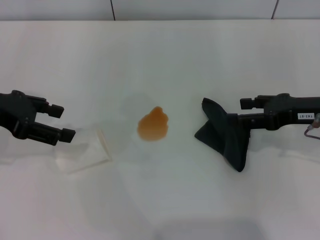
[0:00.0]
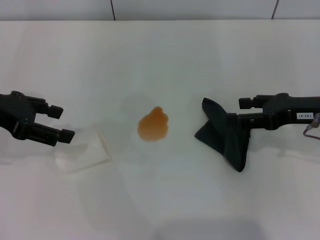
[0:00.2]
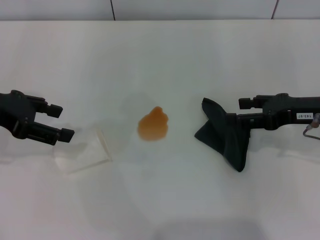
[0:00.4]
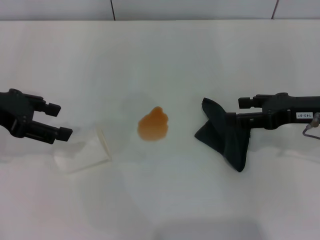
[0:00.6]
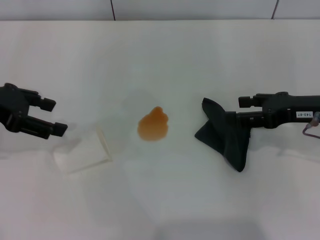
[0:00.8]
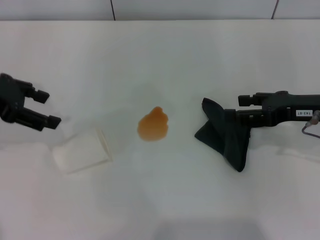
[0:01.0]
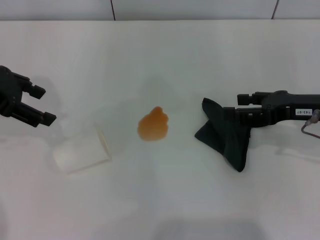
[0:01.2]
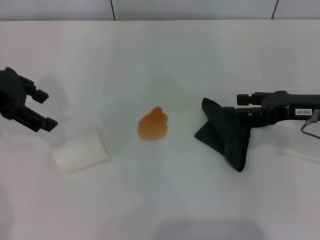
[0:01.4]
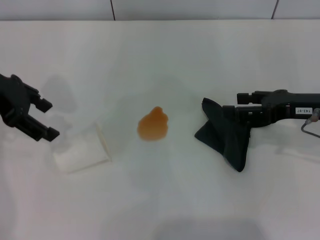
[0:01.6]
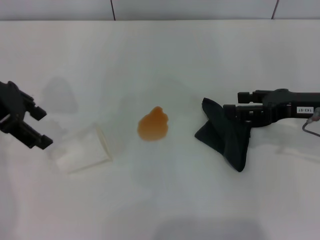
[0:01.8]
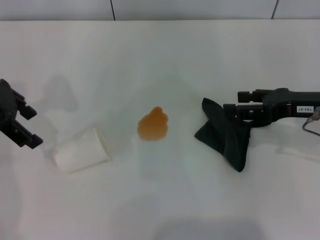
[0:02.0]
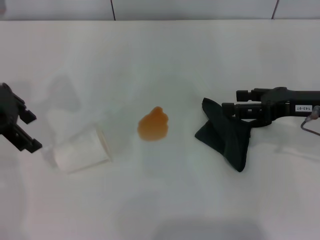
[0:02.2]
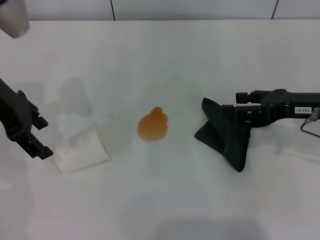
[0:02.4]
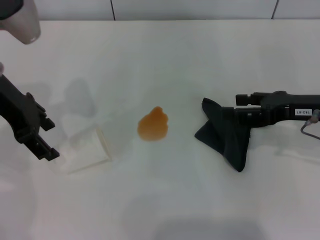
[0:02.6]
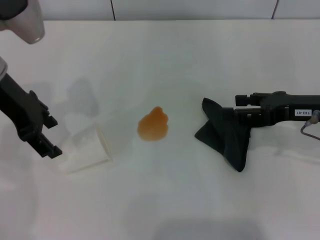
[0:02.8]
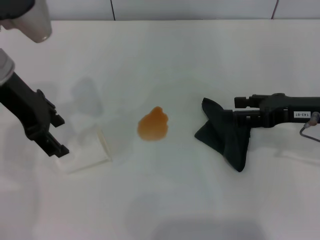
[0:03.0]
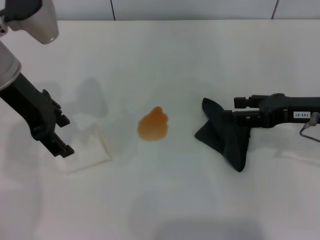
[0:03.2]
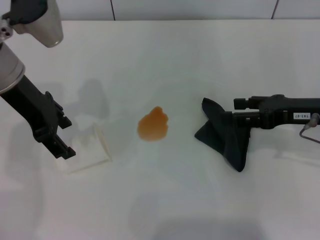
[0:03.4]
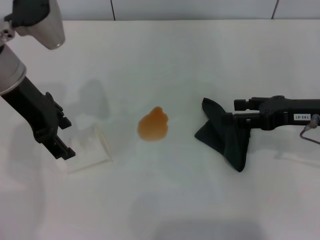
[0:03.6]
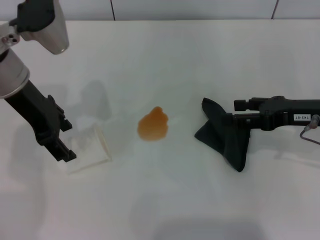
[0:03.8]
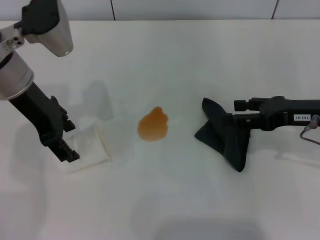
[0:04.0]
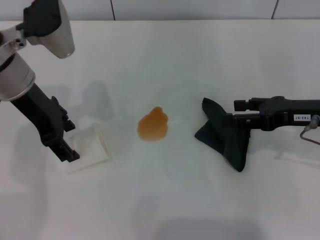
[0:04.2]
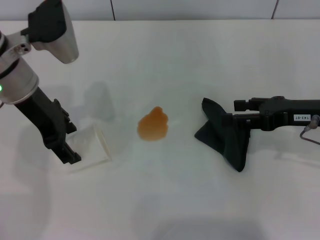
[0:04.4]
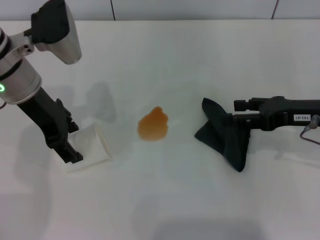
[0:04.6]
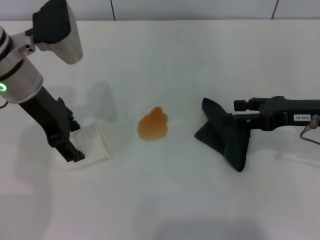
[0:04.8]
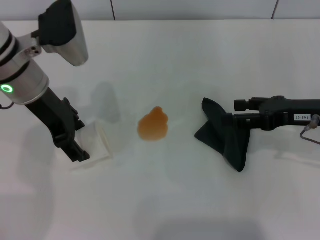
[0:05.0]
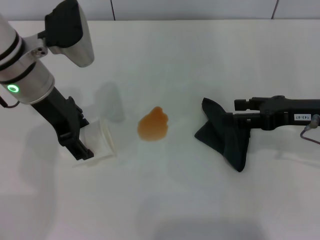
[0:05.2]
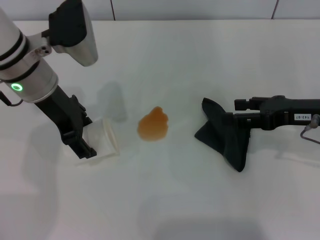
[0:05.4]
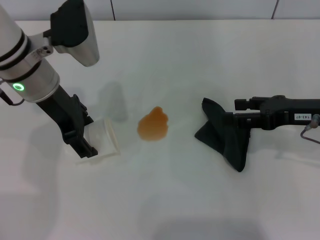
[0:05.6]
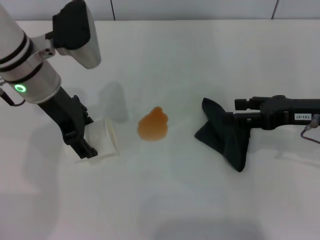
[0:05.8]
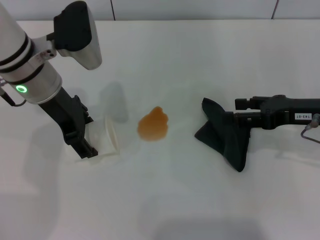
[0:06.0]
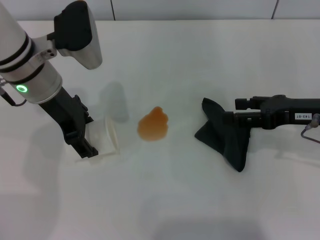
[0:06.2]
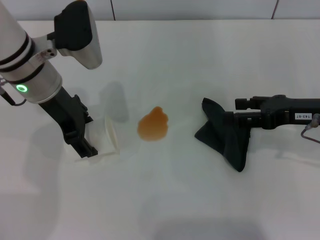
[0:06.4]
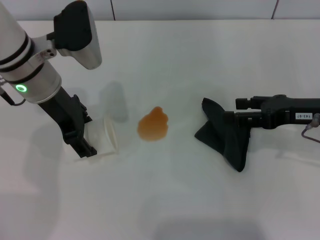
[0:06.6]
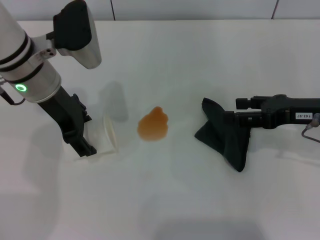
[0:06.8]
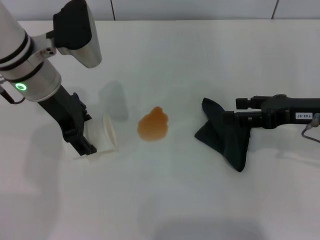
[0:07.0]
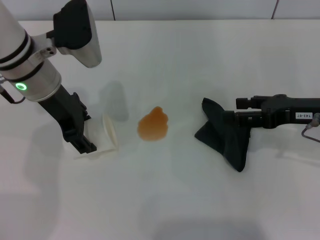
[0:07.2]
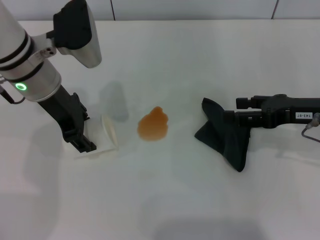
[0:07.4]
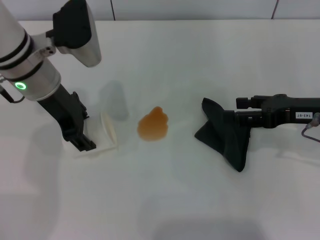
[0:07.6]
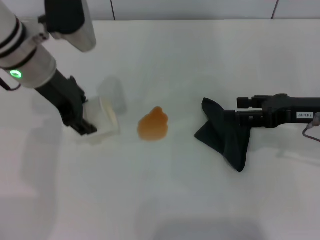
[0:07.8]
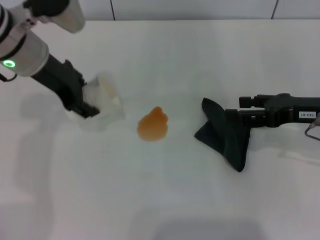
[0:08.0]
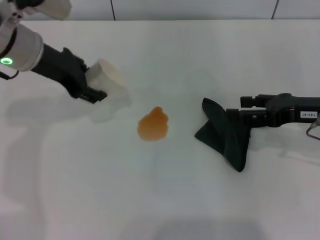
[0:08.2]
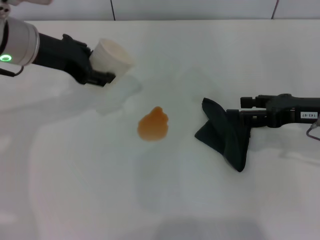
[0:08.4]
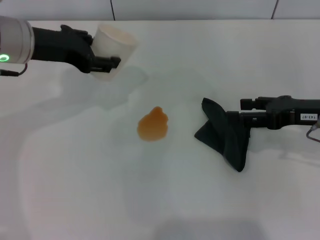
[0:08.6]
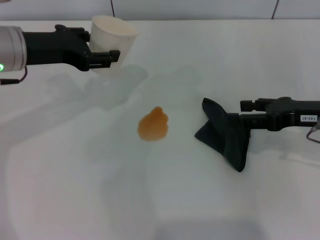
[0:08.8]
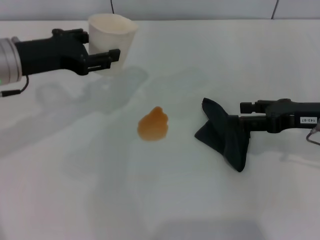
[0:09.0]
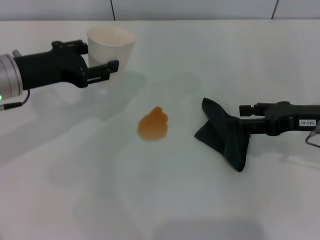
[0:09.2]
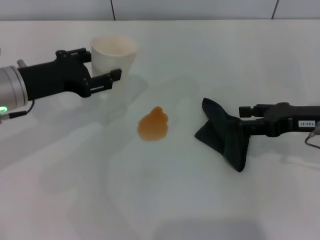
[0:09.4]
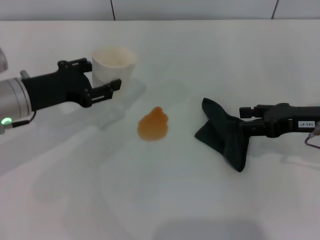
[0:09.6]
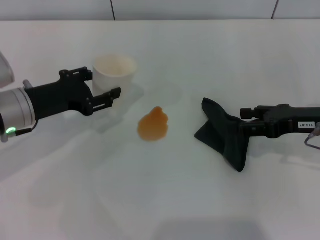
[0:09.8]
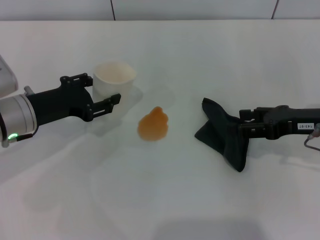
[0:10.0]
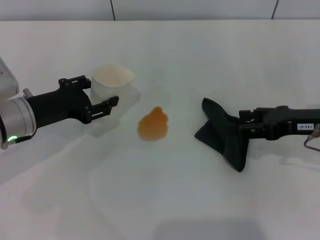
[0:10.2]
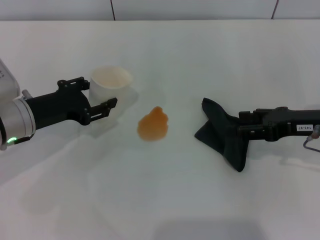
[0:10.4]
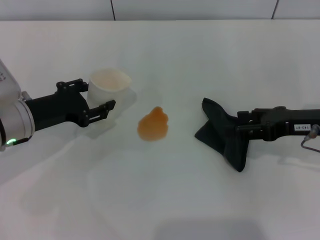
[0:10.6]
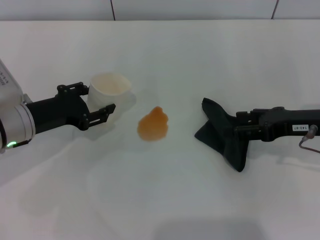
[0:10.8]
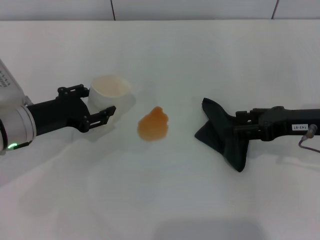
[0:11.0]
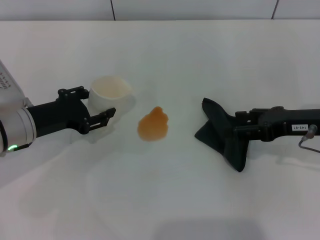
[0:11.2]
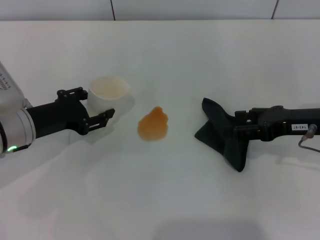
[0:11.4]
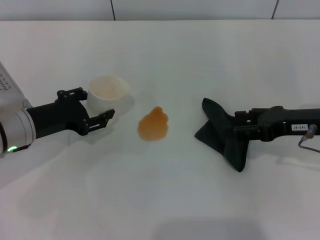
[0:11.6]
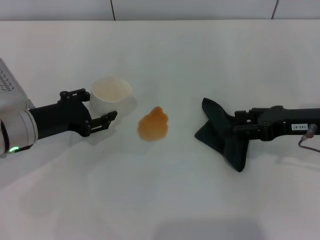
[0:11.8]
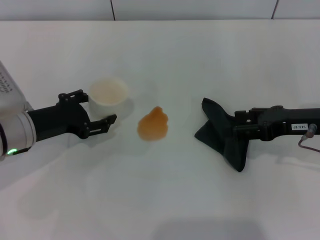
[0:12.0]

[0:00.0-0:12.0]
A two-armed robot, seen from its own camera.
Step, 0:00.0 to 0:07.2: Grasp the paper cup with the left gripper.
0:00.0 to 0:01.6: The left gripper moves some 5 cm.
0:01.6 to 0:03.0: The left gripper moves to the right, about 5 cm.
0:03.0 to 0:06.0: The grippers make only small movements.
0:06.0 to 0:07.6: The left gripper closes up.
0:07.6 to 0:09.0: The left gripper heads to the left, covering roughly 5 cm.
0:09.0 to 0:10.4: The left gripper goes some 10 cm downward.
0:10.4 to 0:12.0: The left gripper opens.

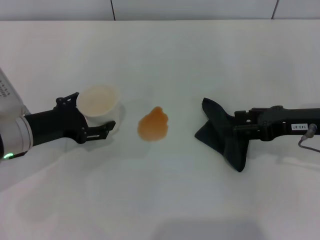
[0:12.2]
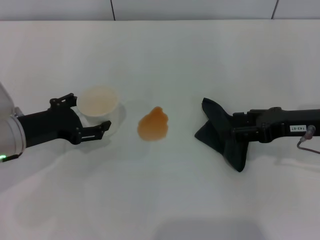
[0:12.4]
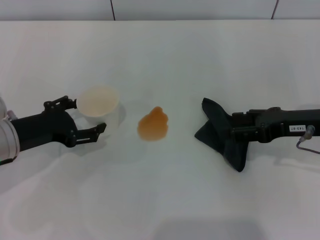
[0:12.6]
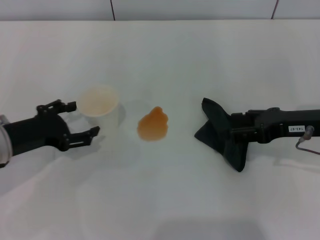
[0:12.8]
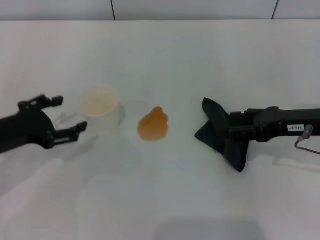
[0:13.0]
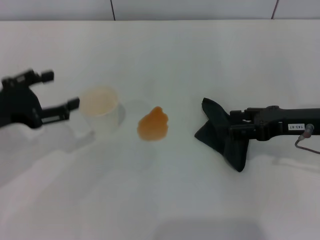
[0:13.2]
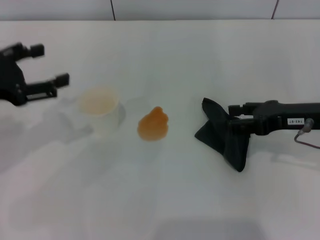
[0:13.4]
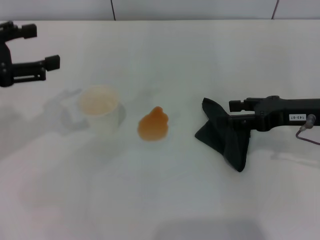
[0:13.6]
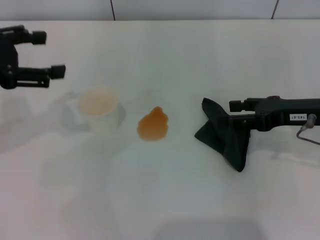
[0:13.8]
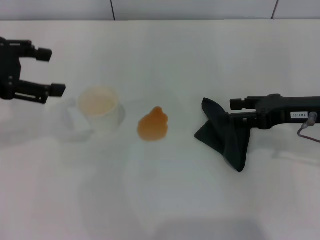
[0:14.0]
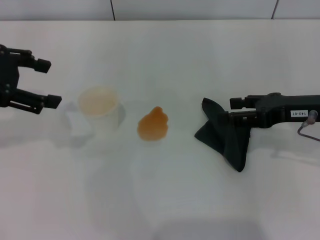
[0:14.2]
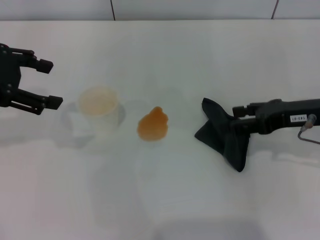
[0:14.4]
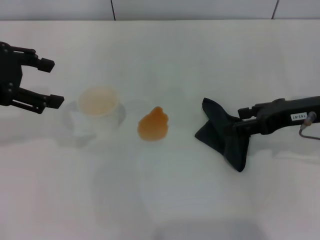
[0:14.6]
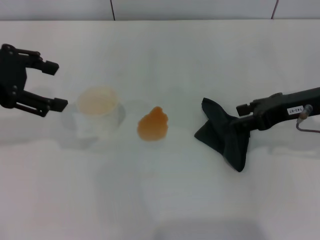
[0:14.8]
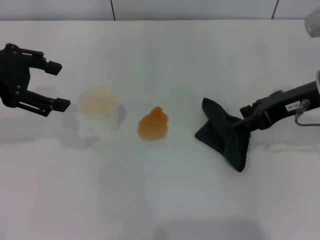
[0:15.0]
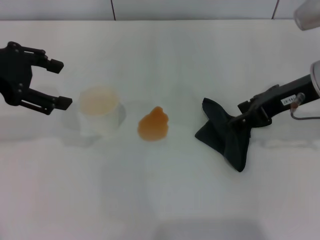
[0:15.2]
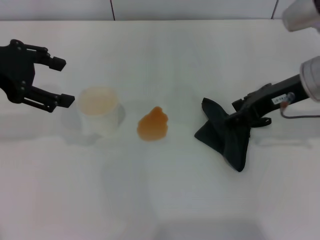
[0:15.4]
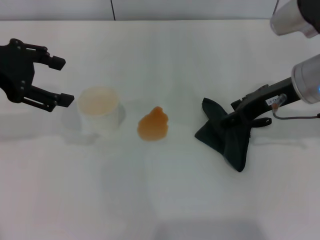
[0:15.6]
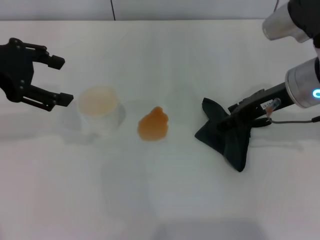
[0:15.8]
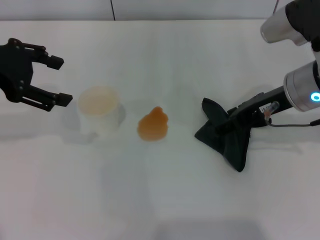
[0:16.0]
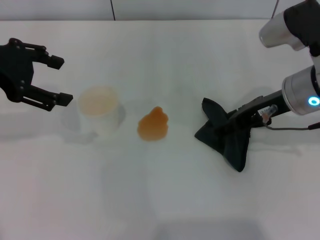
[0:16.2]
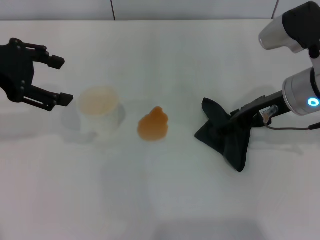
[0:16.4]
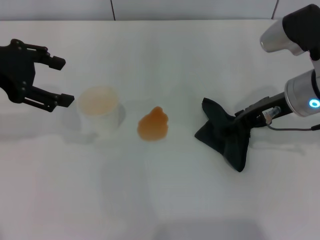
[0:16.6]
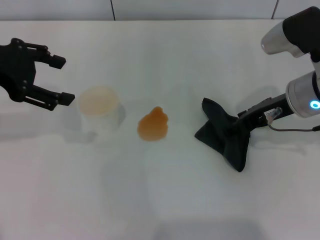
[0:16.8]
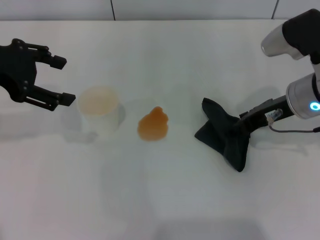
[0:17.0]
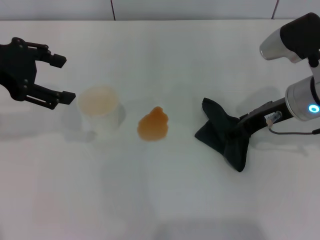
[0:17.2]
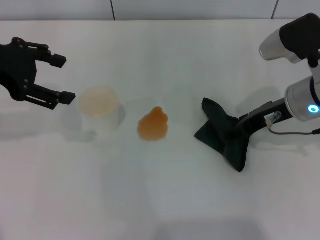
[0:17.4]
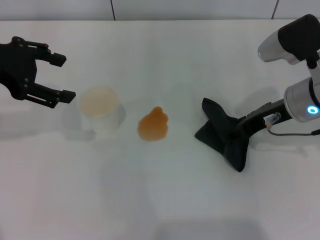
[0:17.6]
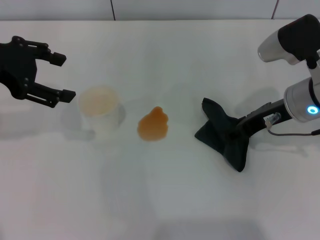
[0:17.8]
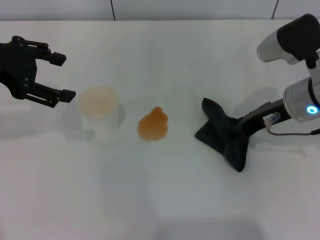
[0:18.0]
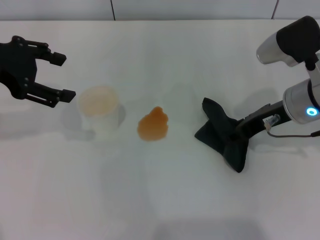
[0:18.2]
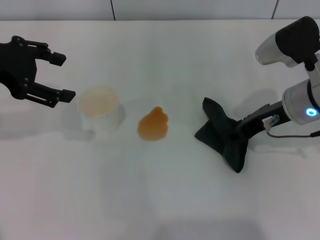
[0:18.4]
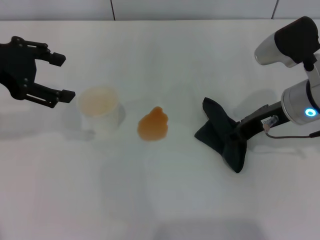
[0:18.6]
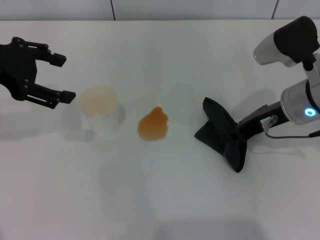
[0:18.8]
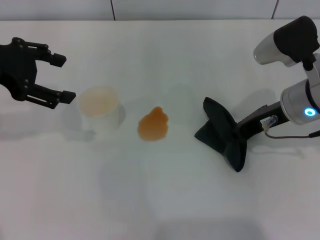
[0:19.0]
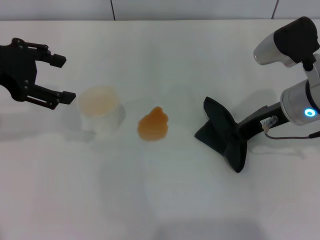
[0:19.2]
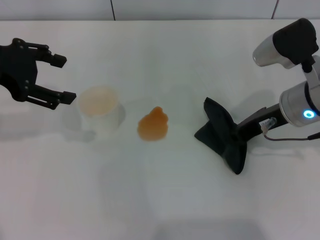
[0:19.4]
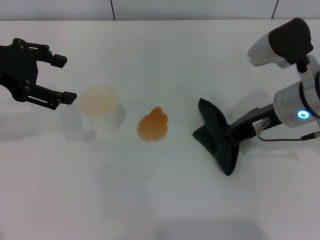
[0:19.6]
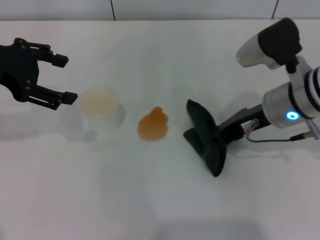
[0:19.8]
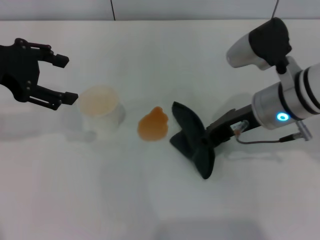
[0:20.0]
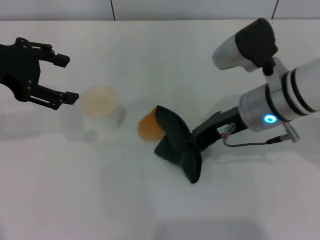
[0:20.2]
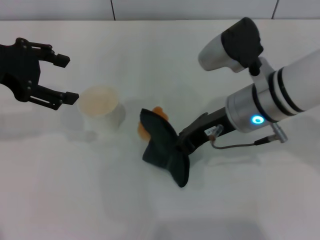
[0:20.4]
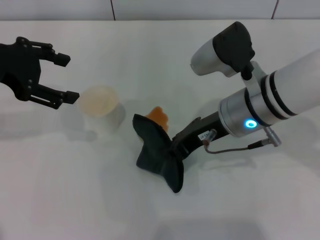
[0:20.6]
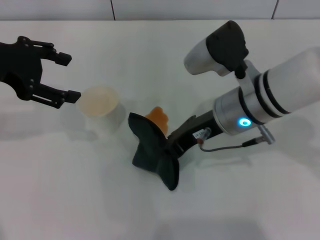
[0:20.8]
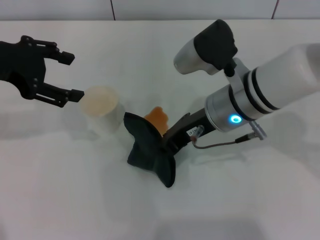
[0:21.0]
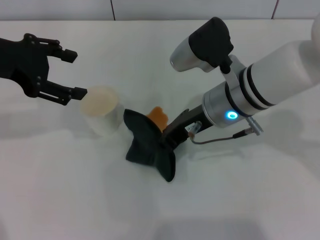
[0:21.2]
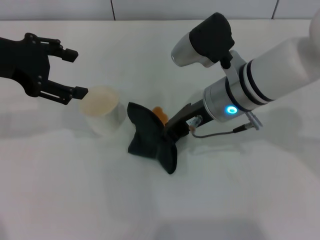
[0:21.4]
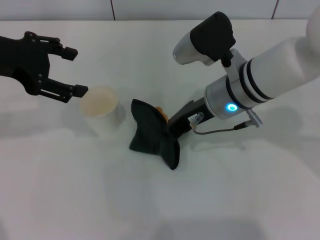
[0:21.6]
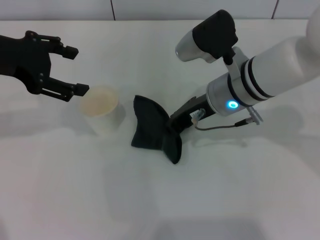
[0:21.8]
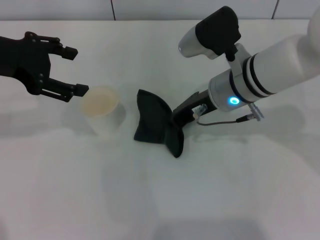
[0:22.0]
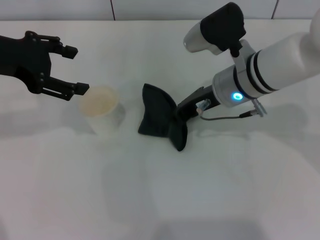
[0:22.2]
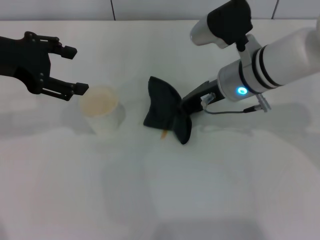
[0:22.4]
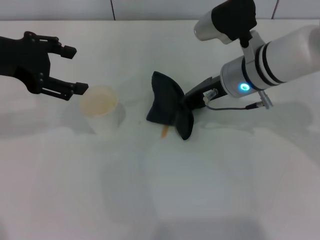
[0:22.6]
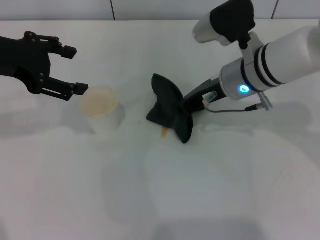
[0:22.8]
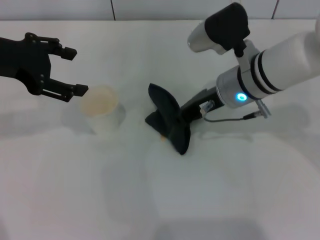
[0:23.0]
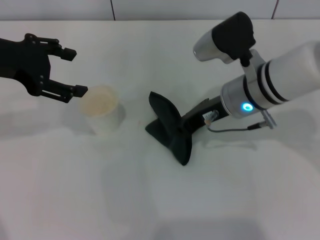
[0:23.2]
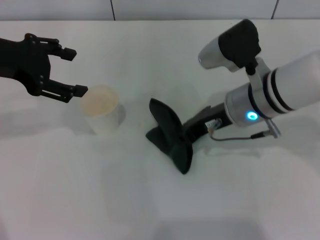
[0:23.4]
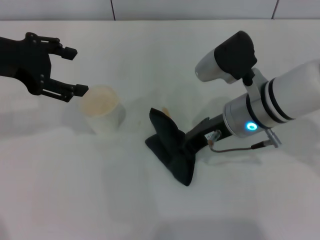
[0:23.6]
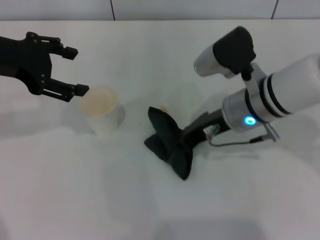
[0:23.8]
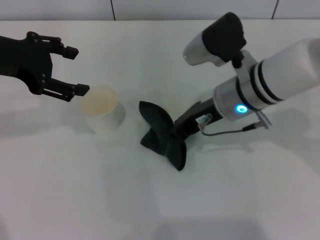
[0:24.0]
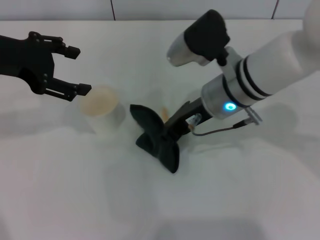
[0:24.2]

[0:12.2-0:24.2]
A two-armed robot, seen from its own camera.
Step, 0:12.8 to 0:19.2: Grasp the rag with the right gripper.
0:12.2 to 0:13.8: The left gripper goes about 15 cm upward.
0:13.8 to 0:15.2: The right gripper moves upward, some 5 cm.
0:15.2 to 0:18.2: There are only small adjustments of the grippers.
0:18.2 to 0:19.8: The right gripper closes its fingers.
0:19.8 to 0:21.2: The right gripper is displaced to the left by approximately 10 cm.
0:21.2 to 0:22.6: The right gripper ends up roughly 5 cm from where it was.
0:22.6 to 0:24.2: The grippers move only a little.
